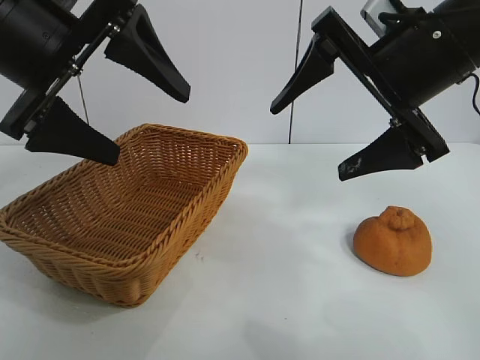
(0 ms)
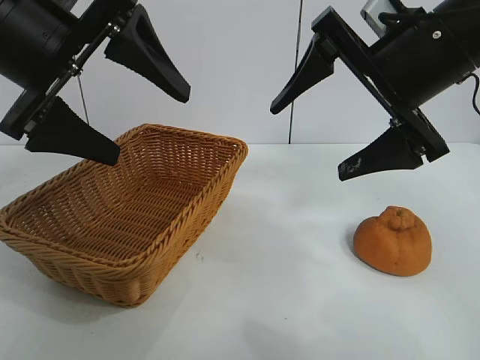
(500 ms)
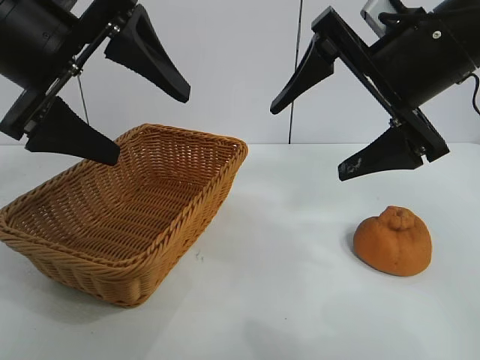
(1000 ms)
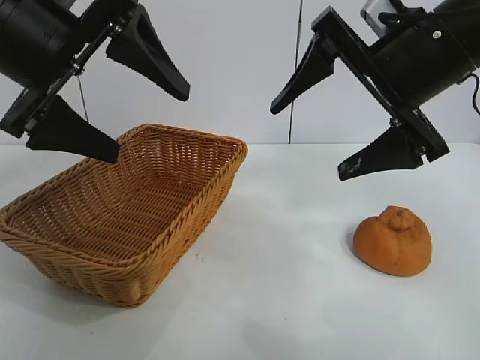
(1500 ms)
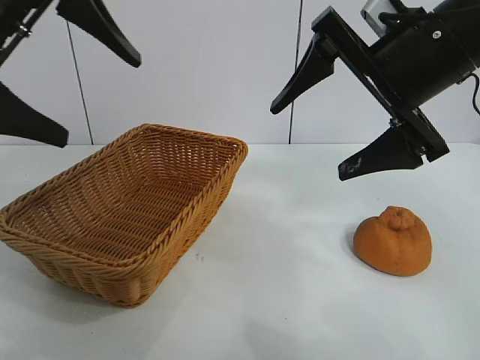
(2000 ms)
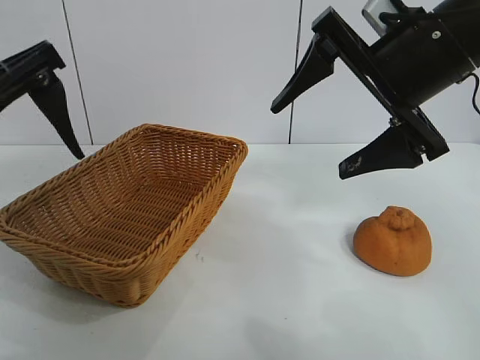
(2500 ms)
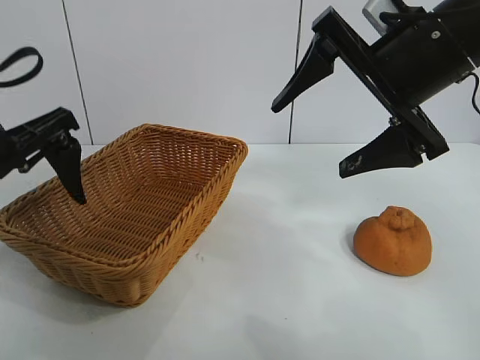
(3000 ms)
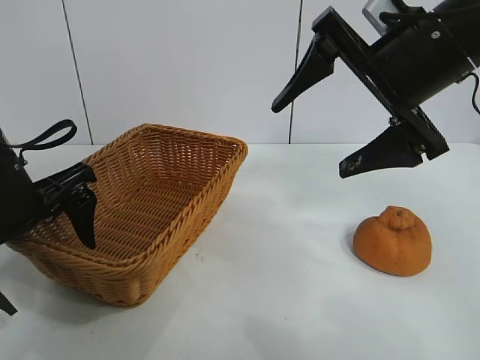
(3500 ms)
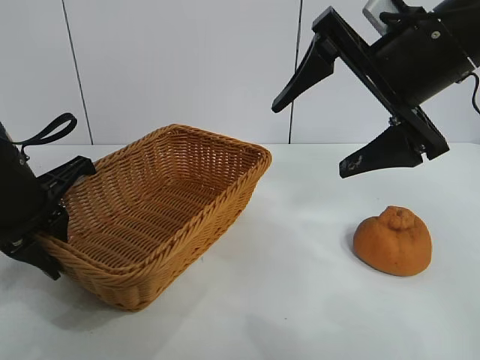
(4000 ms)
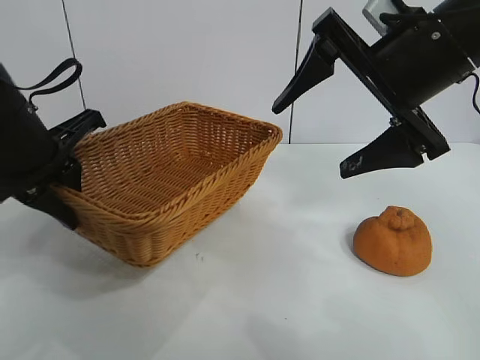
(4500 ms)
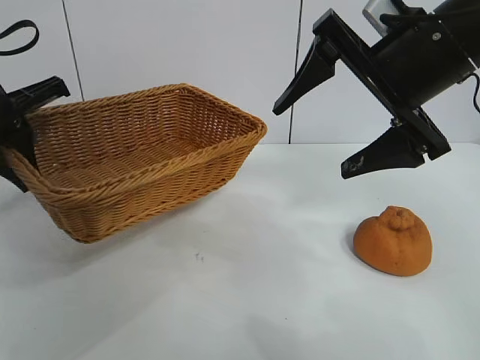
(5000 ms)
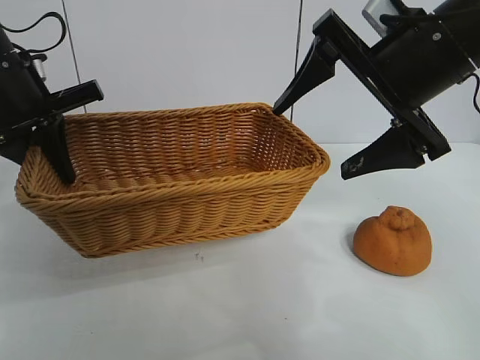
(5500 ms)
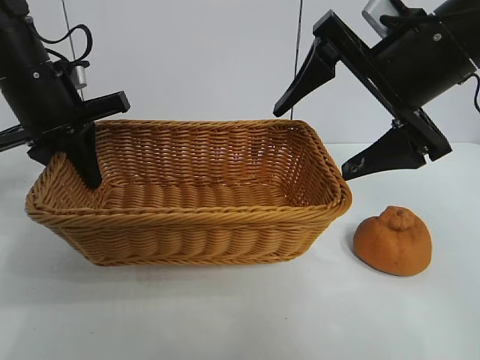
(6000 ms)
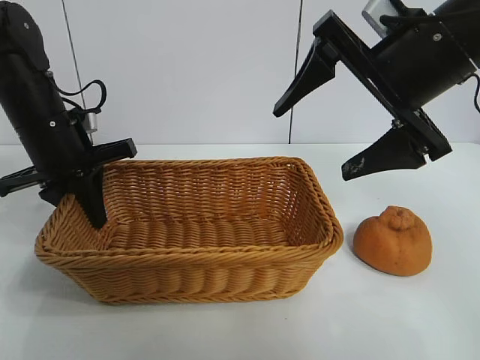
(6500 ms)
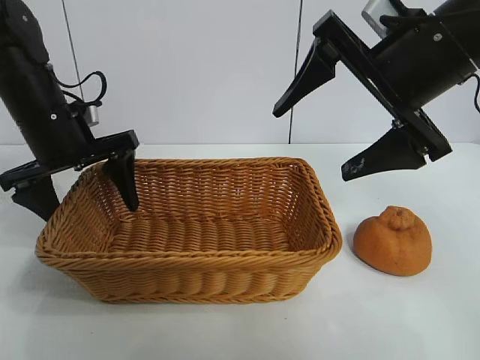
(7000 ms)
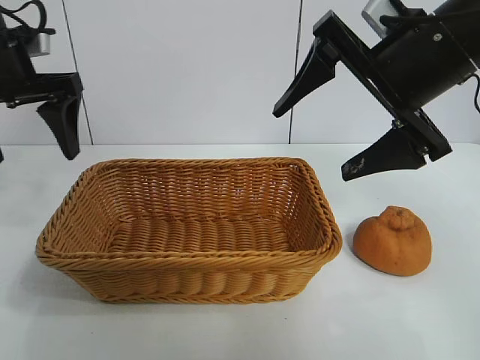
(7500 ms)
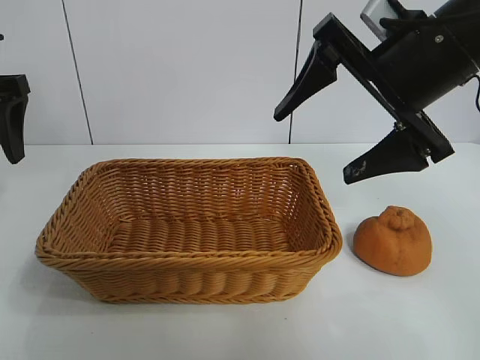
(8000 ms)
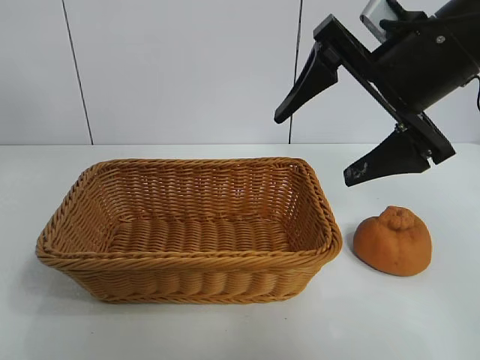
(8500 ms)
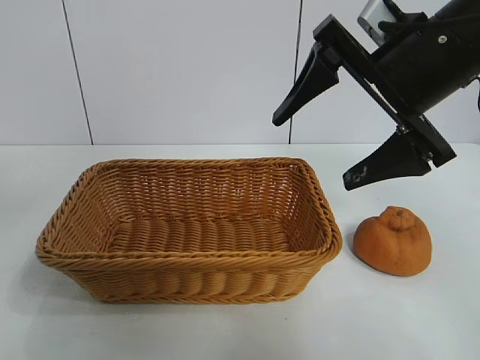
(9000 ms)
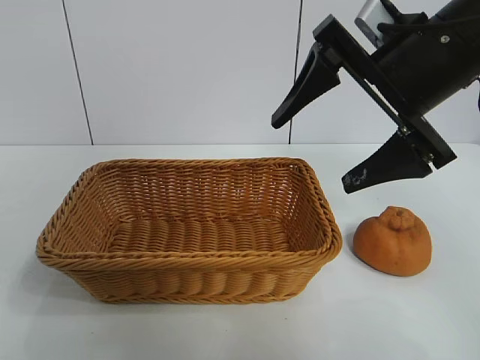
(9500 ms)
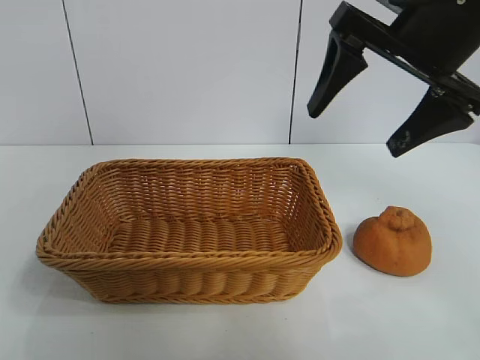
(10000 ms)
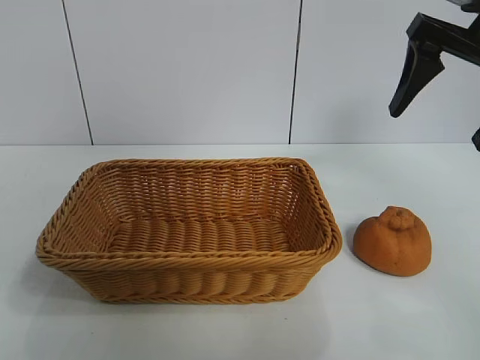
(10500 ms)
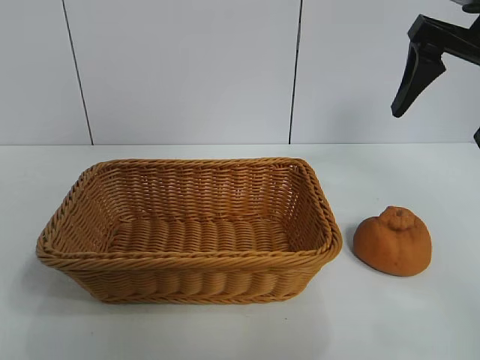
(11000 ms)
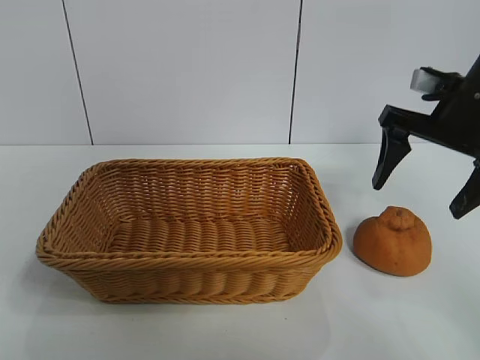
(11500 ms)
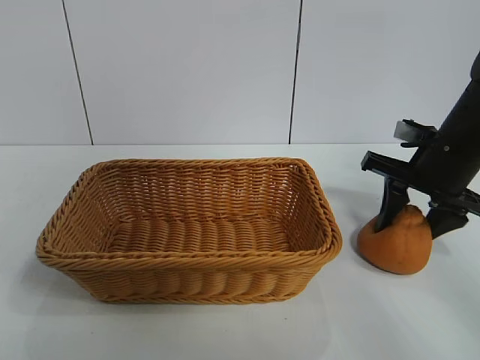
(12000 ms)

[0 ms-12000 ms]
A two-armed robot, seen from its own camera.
Task of the whole recording: pick up the orange and put it into the basket.
Step, 1500 ms to 3500 ms: Grasp the basket with left gripper.
Step, 4500 ms to 6500 ms: Place the basket in the center of view with left gripper.

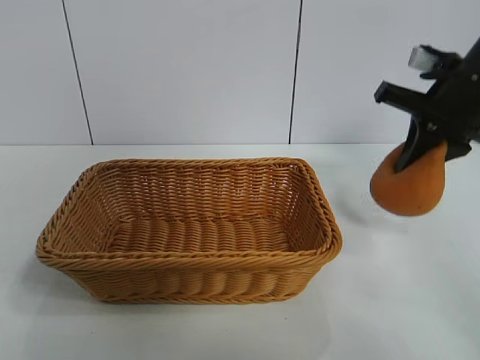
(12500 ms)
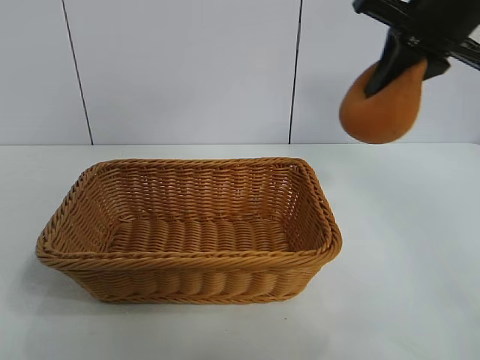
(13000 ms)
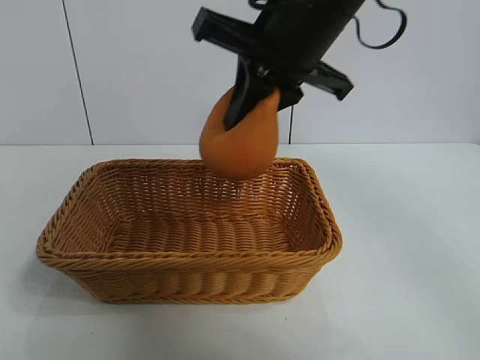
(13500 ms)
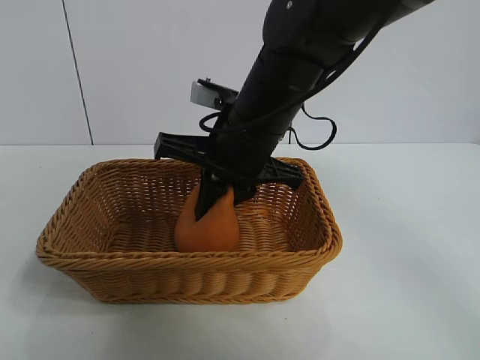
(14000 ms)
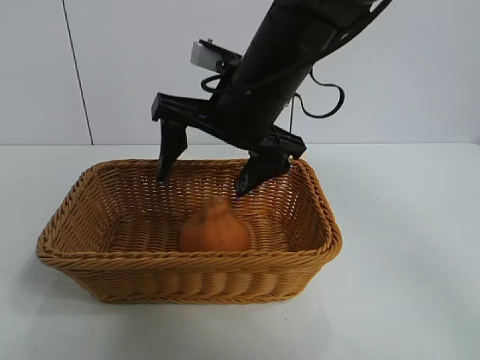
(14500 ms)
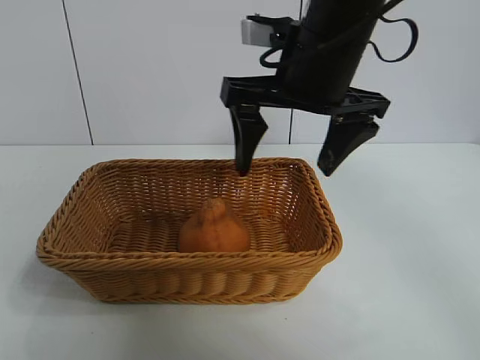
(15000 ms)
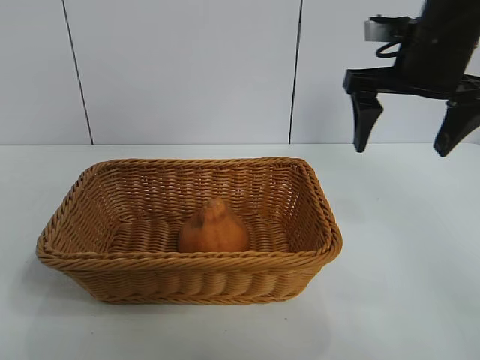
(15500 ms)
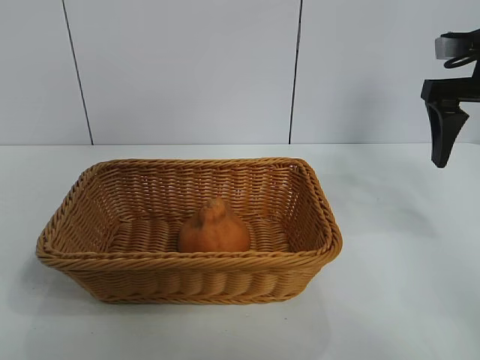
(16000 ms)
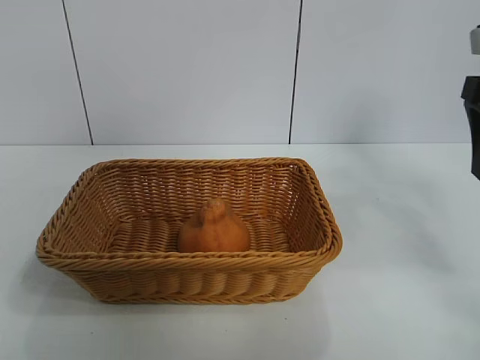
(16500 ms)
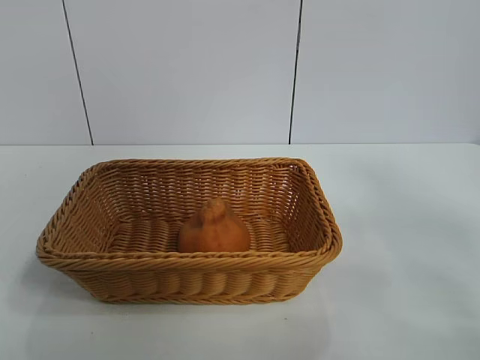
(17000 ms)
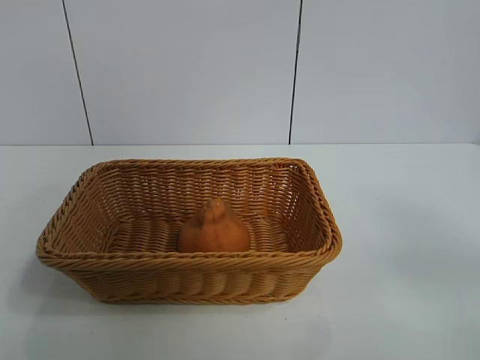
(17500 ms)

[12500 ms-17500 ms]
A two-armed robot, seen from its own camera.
Task of the whole recording: pick up the orange and put it into the basket.
Step, 12500 ms to 14000 ms: Place the orange in the basket with right gripper.

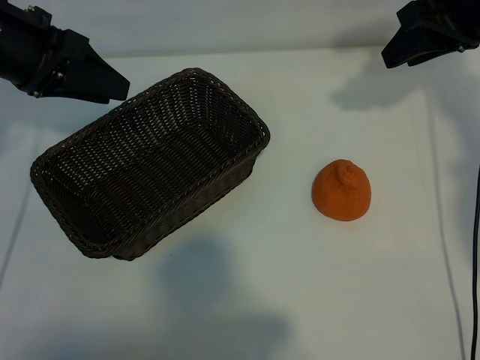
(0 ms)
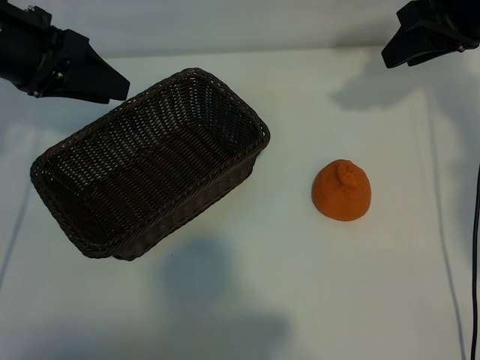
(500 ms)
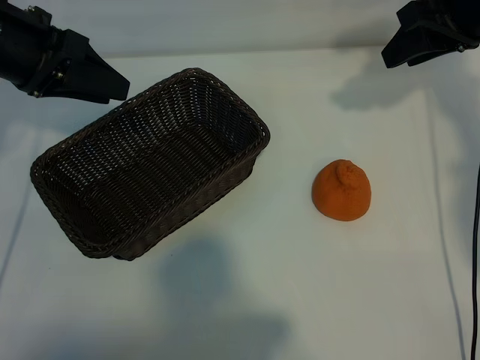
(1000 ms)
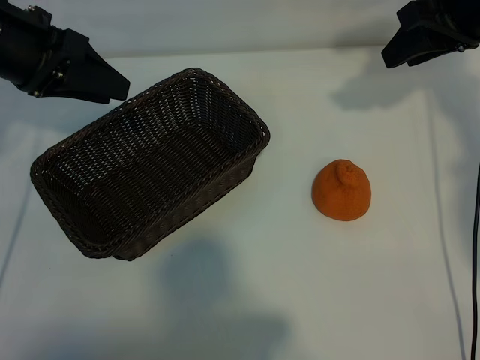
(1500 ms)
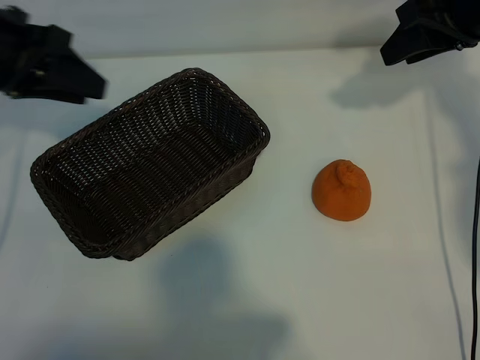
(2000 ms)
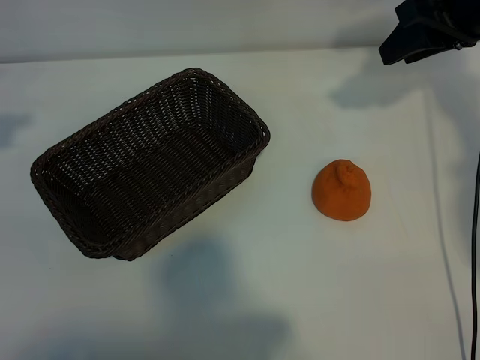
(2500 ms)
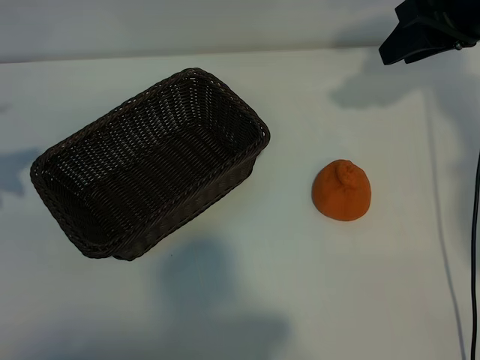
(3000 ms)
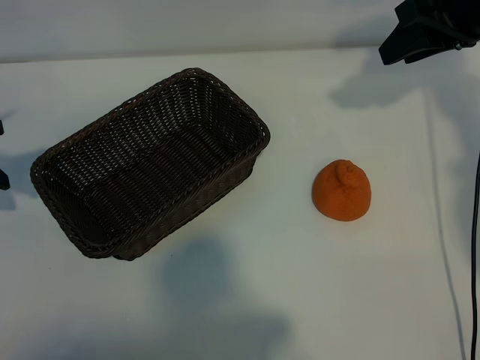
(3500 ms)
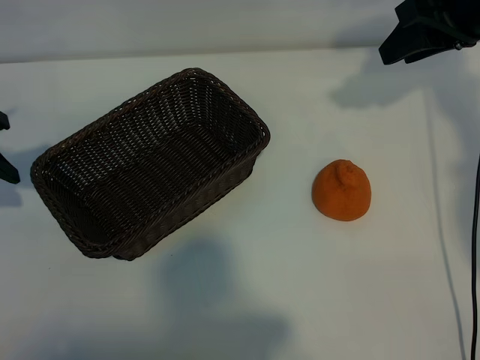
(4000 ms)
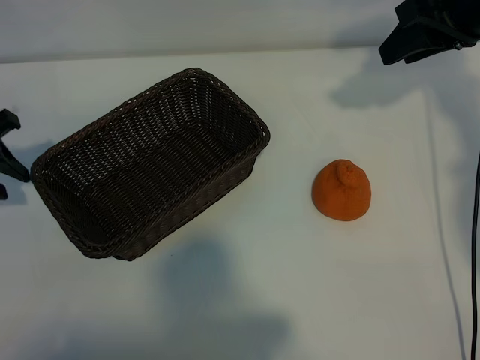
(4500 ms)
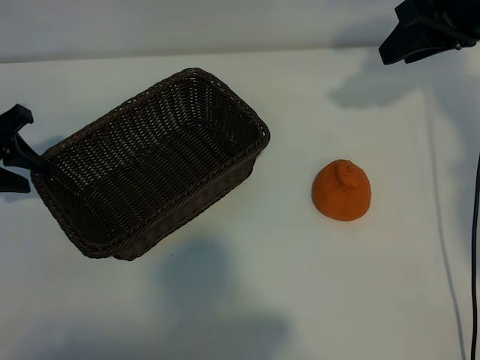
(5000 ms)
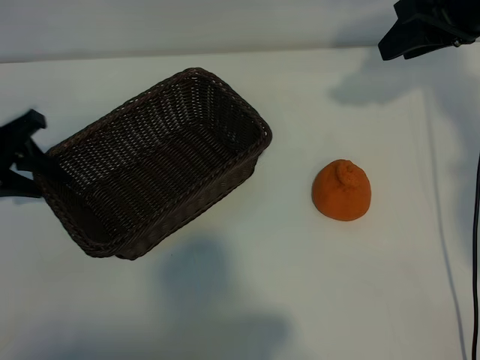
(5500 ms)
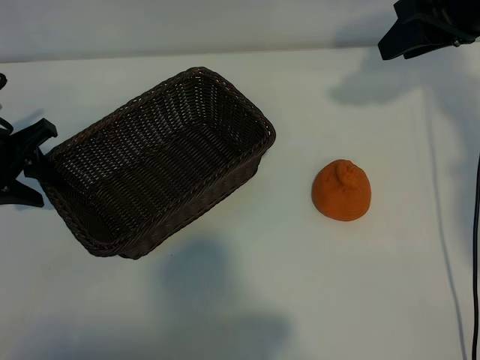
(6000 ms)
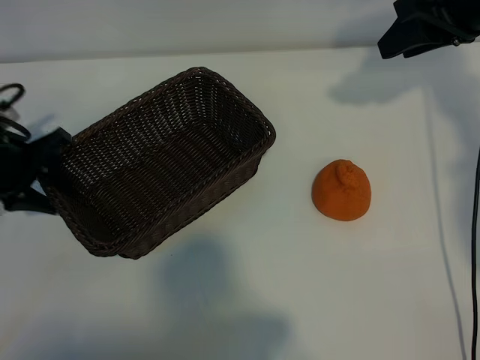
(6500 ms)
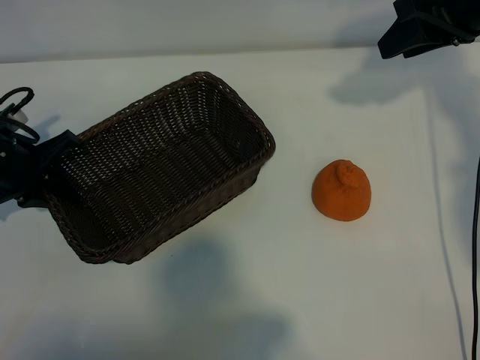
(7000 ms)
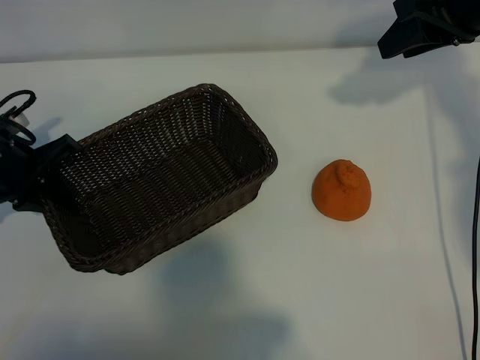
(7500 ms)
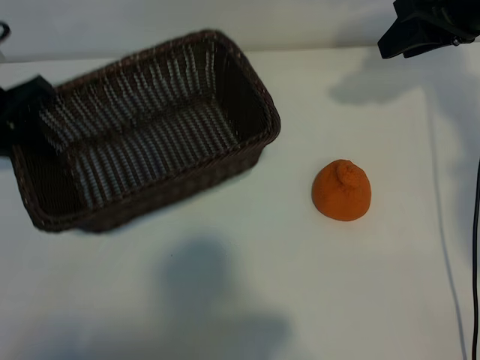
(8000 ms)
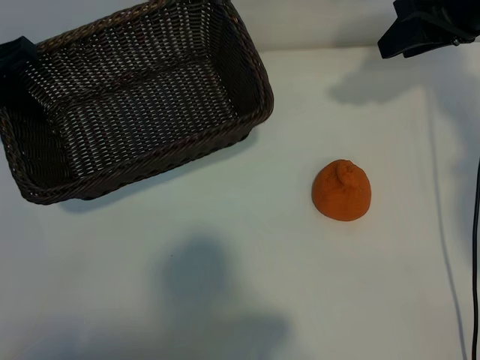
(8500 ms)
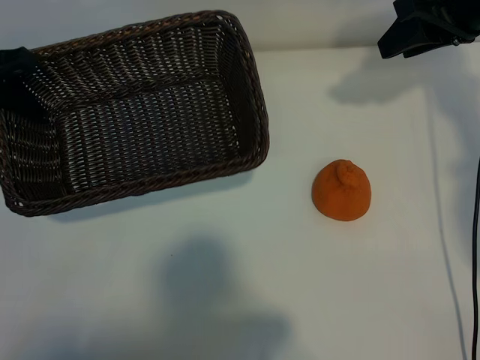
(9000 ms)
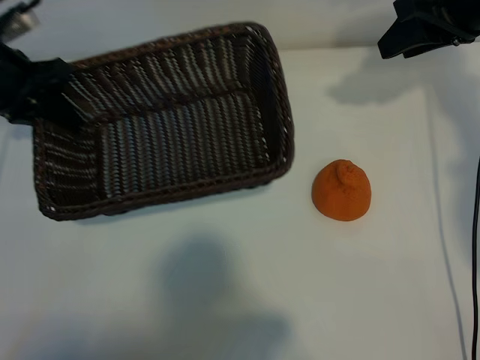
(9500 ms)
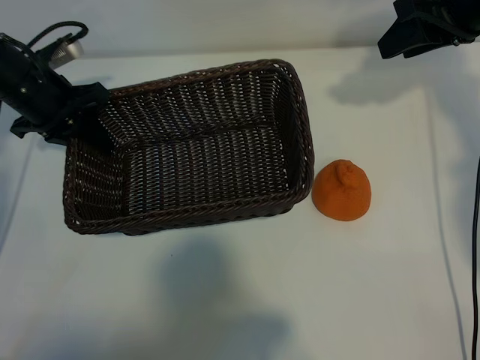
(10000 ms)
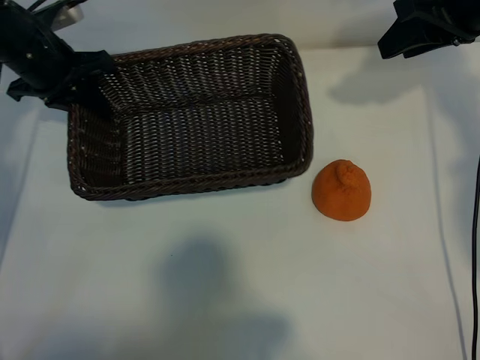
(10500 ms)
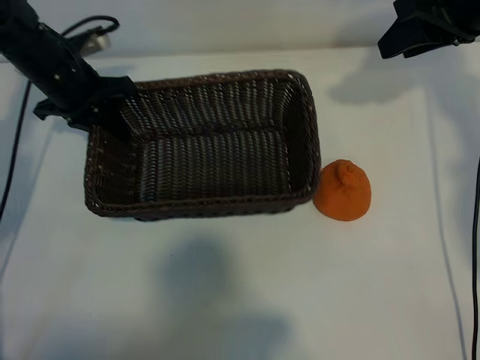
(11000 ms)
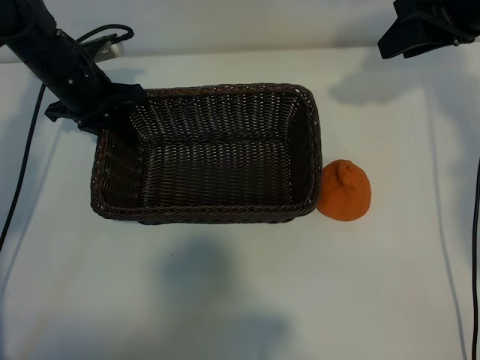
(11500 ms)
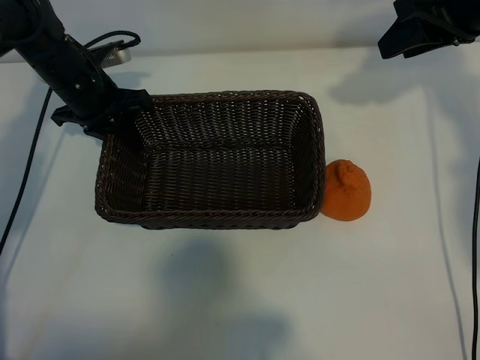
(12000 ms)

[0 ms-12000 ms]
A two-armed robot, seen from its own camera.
Task of the whole recording: pick up the orange and put it into the basket.
Step, 2000 ms to 6500 ms: Grasp the basket with left gripper.
